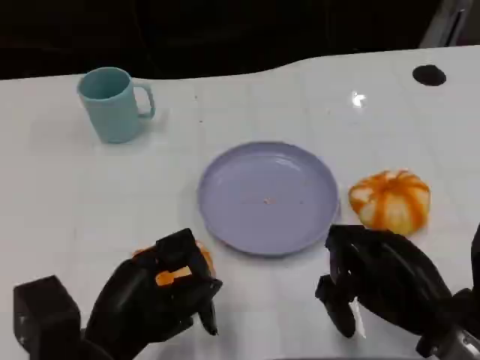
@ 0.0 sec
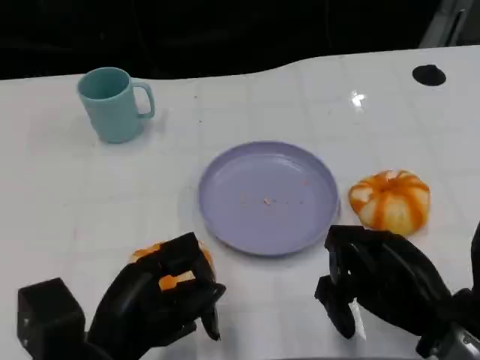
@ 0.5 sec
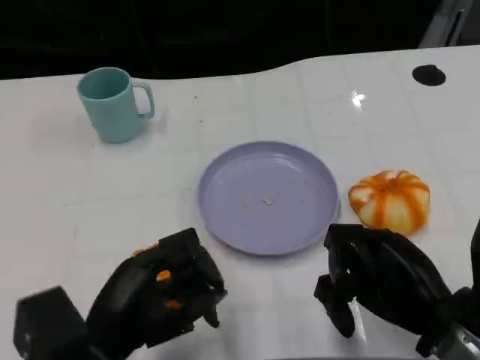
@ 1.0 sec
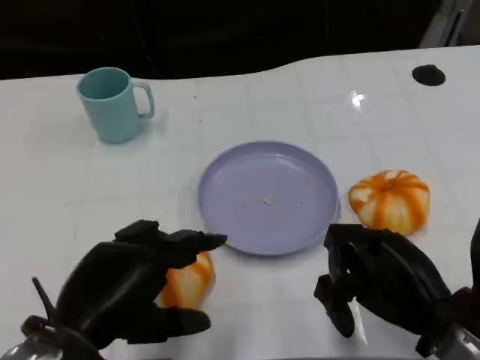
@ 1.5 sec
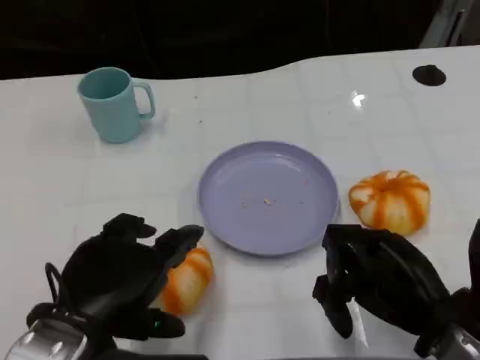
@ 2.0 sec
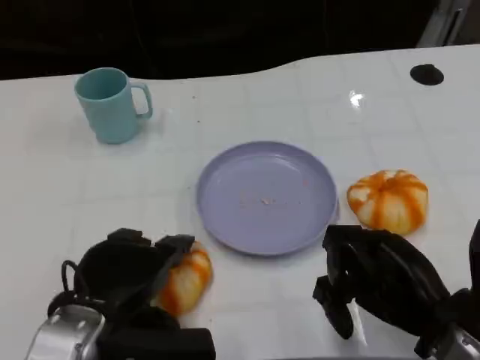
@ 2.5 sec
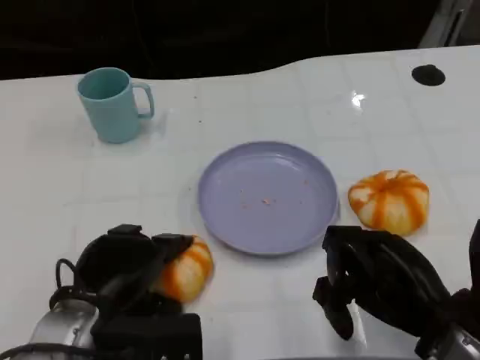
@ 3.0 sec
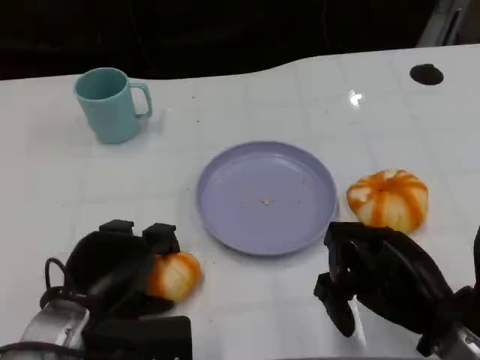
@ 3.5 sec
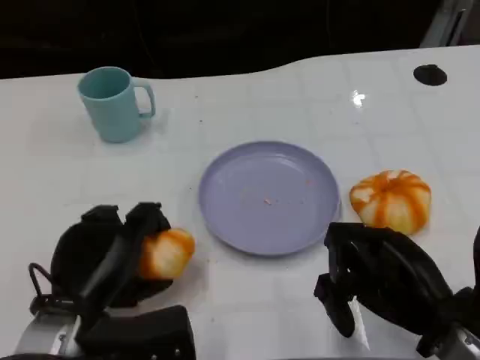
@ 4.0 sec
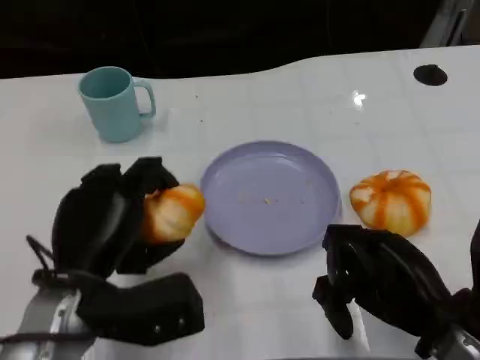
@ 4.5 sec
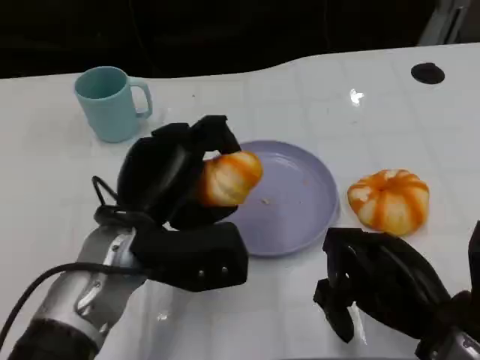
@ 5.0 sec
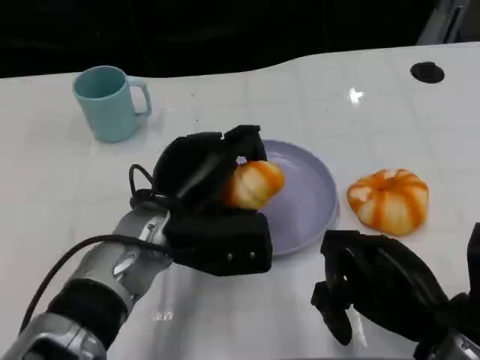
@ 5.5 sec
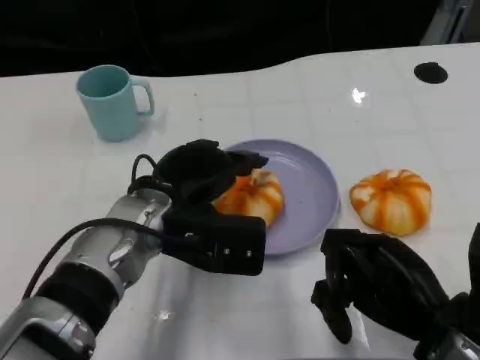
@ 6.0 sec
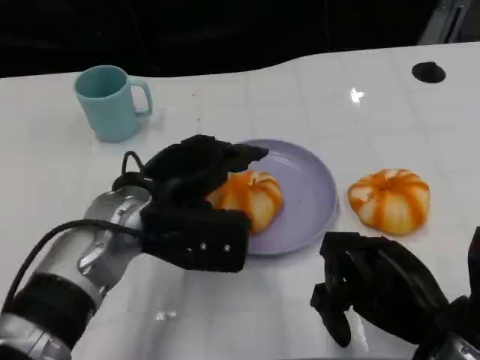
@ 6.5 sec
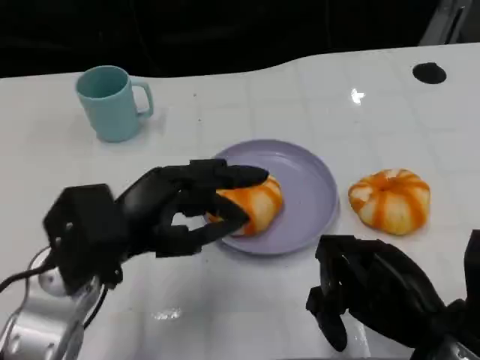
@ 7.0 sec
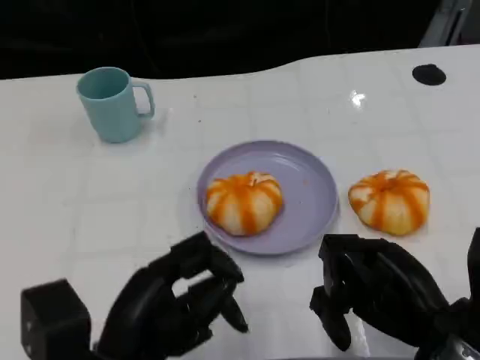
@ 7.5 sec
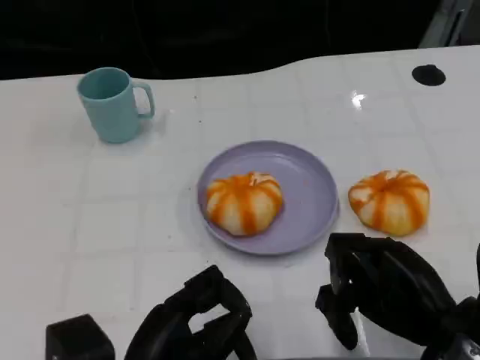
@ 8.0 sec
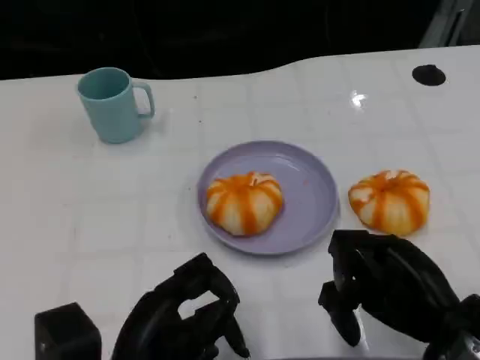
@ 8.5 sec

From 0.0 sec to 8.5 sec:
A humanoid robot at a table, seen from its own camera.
Task of the whole recording: Grasp the bread from the table and place it into the plate.
From 0.0 sec to 2.0 sec: The left hand is displaced upward by approximately 5 cm.
From 2.0 sec to 4.0 sec: The left hand heads downward, covering approximately 5 cm.
From 4.0 sec to 6.5 sec: The left hand goes approximately 10 cm forward, upward and to the right.
From 6.5 sec to 8.5 sec: The left hand shifts approximately 15 cm backward and downward.

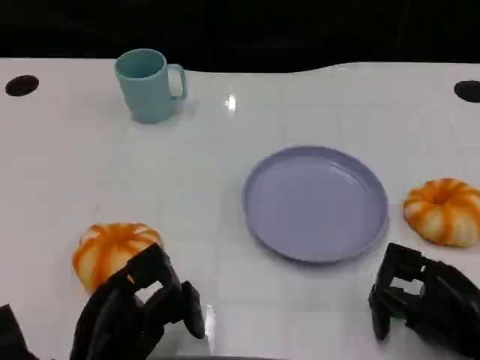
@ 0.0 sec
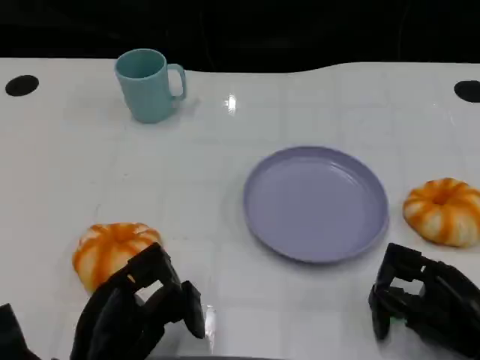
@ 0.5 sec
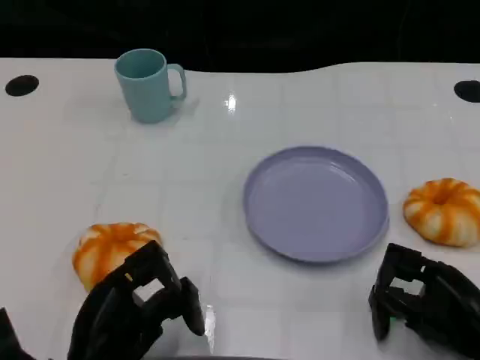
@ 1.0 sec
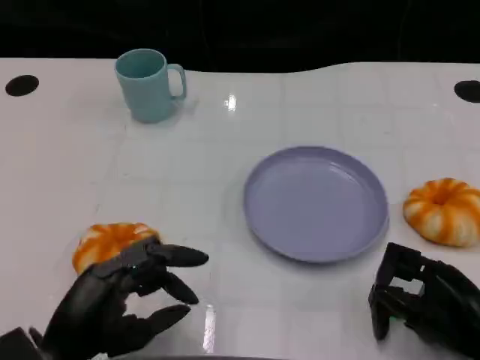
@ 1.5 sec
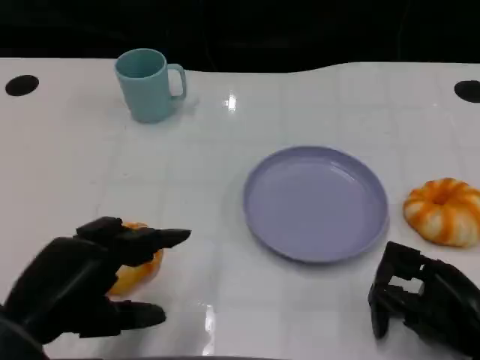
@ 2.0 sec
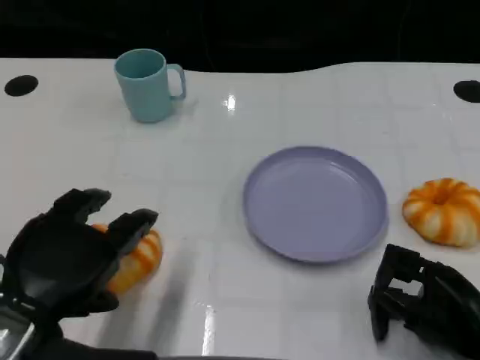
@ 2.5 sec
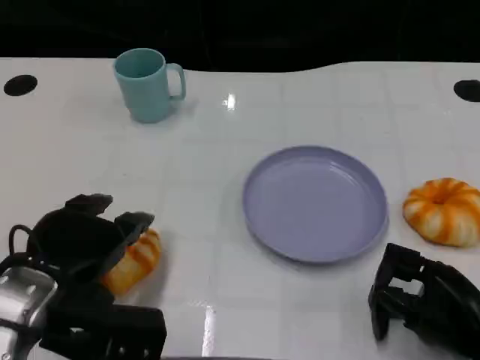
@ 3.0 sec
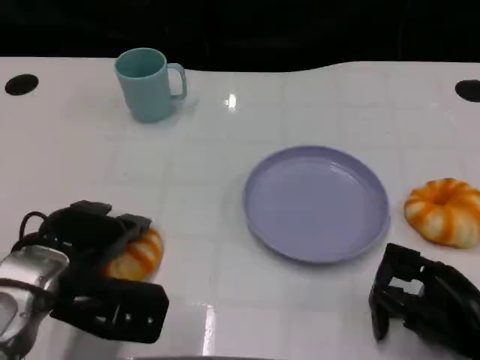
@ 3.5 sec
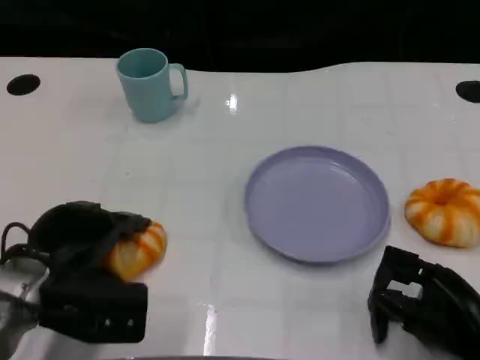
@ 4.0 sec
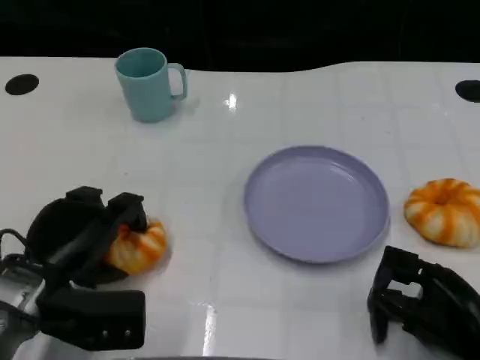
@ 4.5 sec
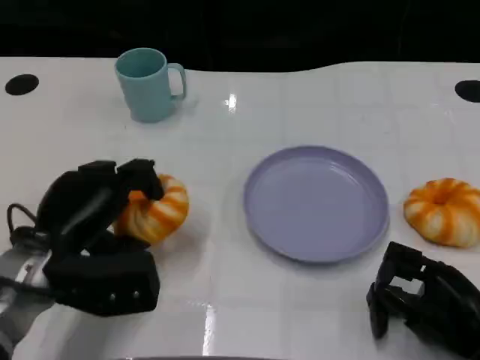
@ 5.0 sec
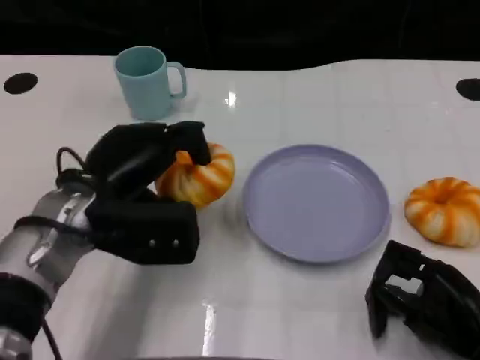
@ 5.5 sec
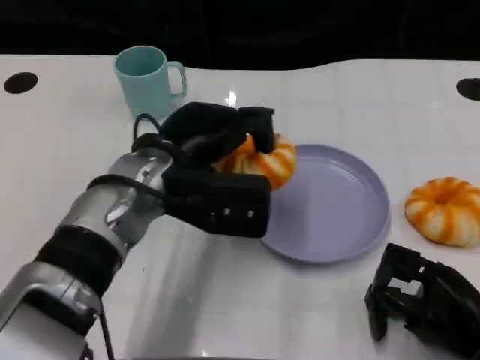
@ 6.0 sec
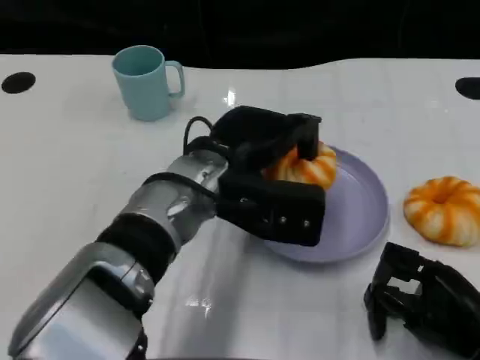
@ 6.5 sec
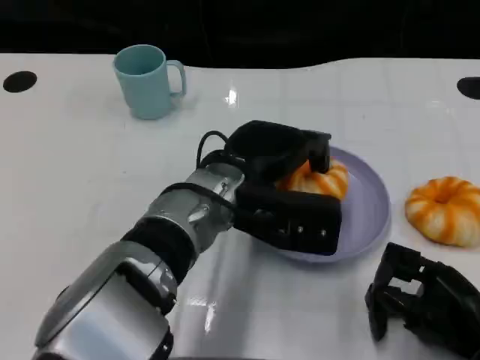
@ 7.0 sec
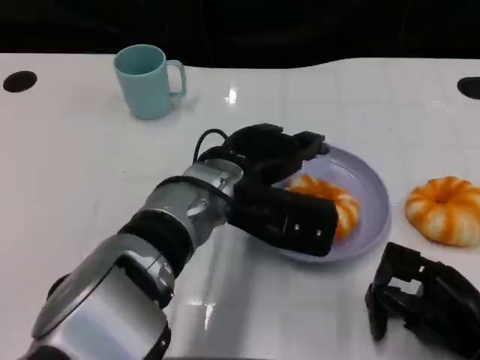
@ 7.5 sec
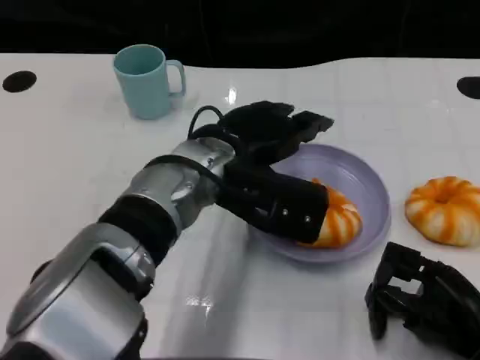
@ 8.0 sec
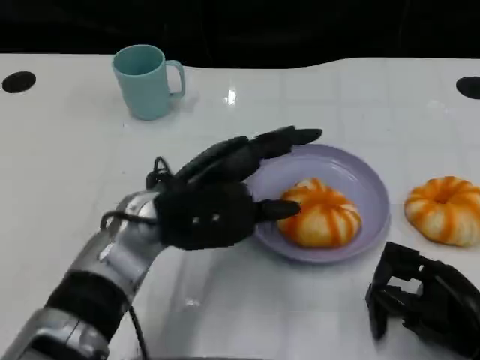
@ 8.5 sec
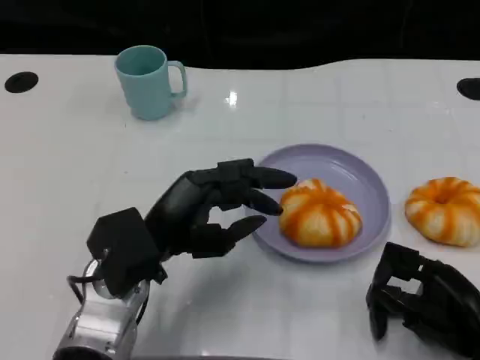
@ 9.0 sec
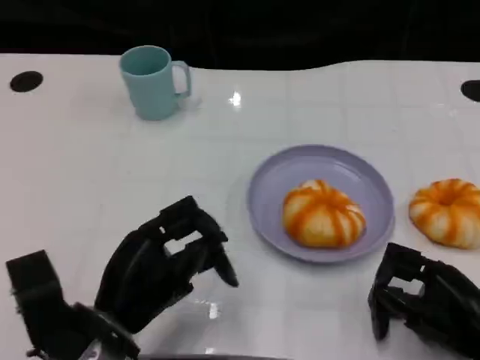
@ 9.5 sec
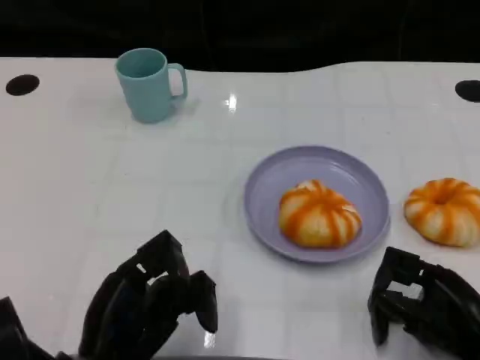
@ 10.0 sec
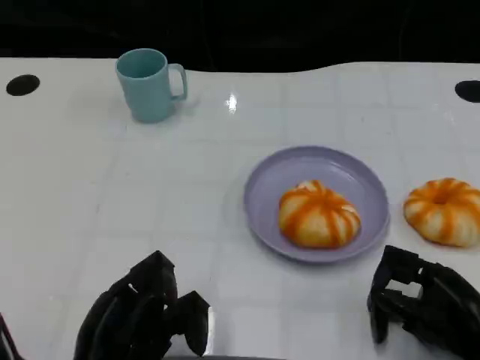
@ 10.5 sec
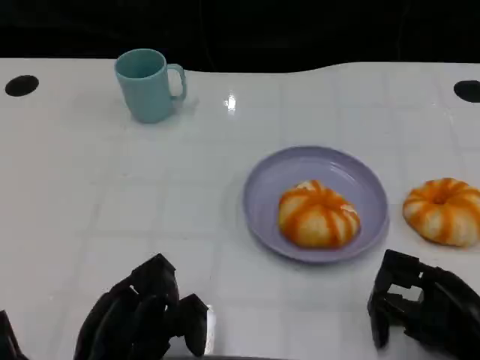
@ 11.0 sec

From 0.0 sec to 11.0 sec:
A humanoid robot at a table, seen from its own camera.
Task of the whole recording: Grasp the bread from the table and place it into the plate.
From 0.0 sec to 2.0 sec: The left hand shifts some 10 cm upward.
From 2.0 sec to 3.5 sec: The left hand moves forward, some 10 cm.
From 3.5 sec to 5.5 sec: The left hand ends up approximately 5 cm from where it was.
From 5.5 sec to 7.5 sec: The left hand moves to the right, roughly 15 cm.
From 7.5 sec to 9.0 sec: The left hand shifts approximately 10 cm to the left and backward.
From 9.0 sec to 11.0 sec: The left hand heads backward, downward and to the left, covering roughly 15 cm.

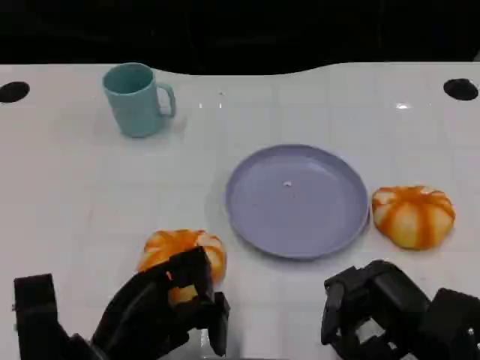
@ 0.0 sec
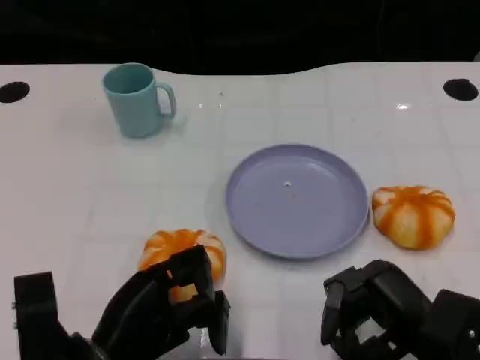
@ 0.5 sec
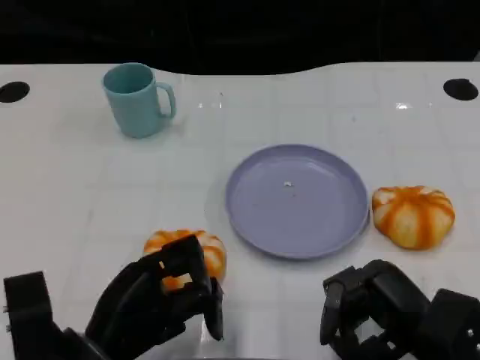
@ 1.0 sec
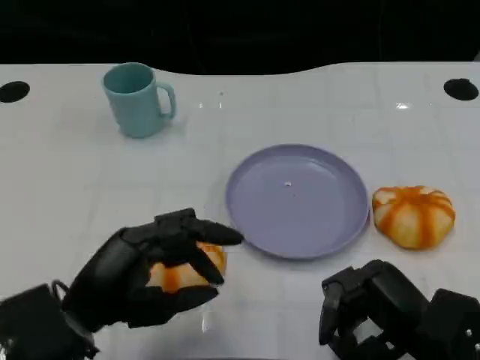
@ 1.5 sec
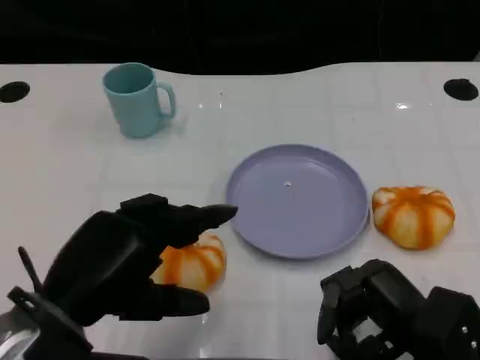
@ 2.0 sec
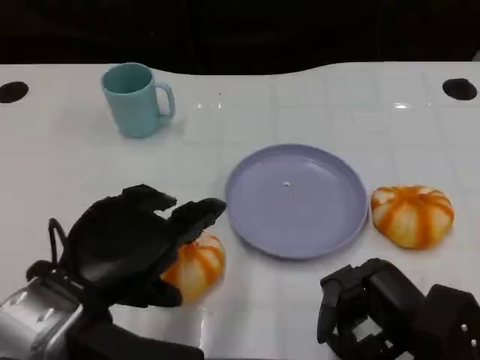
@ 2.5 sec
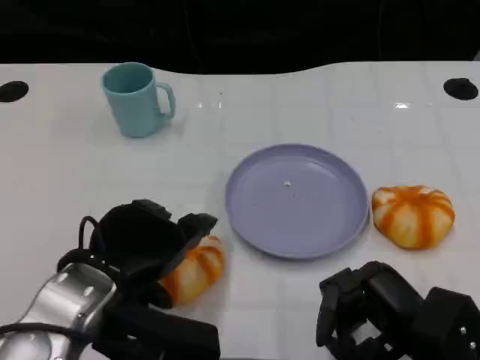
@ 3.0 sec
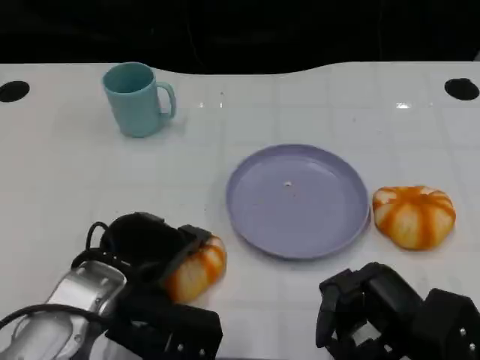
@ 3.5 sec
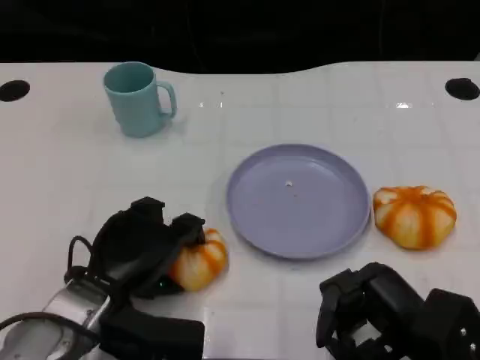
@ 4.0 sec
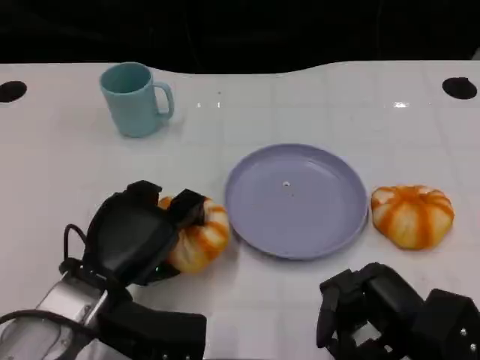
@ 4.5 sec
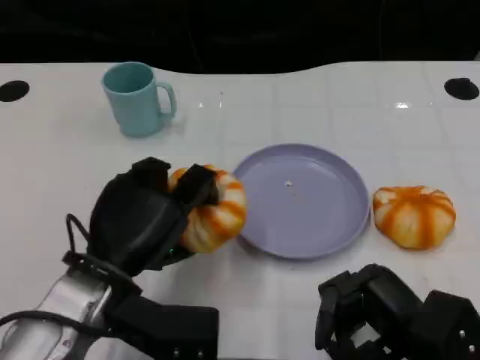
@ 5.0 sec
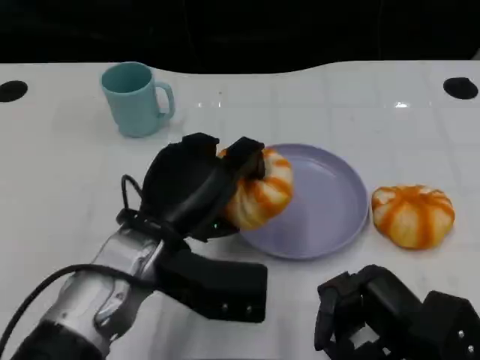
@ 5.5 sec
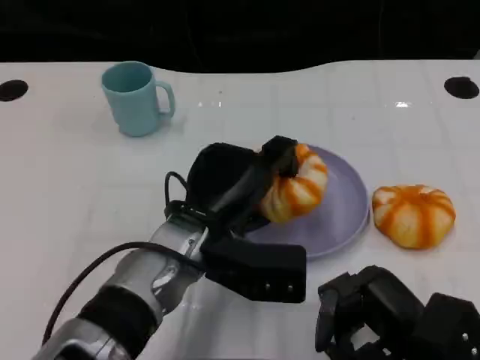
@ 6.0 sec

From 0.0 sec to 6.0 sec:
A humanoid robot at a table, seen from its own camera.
Task of the whole recording: Grasp the bread from the table and place it into the plate.
From 0.0 sec to 2.0 sec: The left hand moves upward, roughly 10 cm.
From 2.0 sec to 4.0 sec: The left hand is displaced downward and forward by approximately 10 cm.
From 4.0 sec to 6.0 sec: The left hand goes approximately 10 cm to the right.
